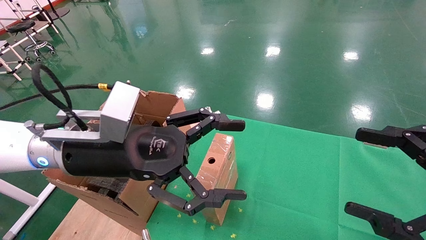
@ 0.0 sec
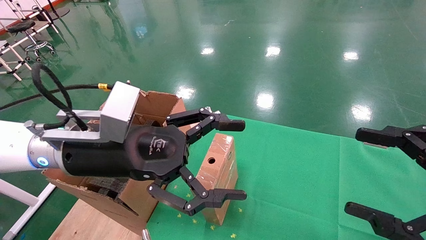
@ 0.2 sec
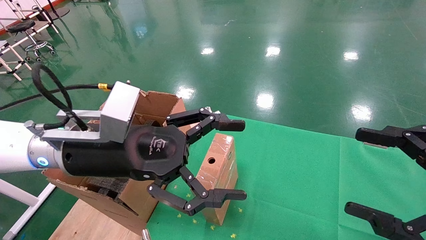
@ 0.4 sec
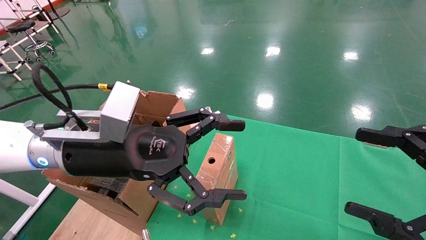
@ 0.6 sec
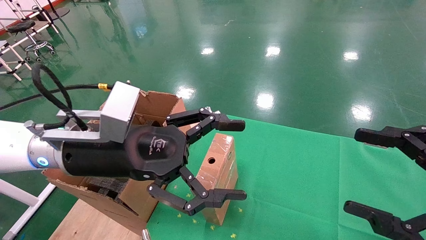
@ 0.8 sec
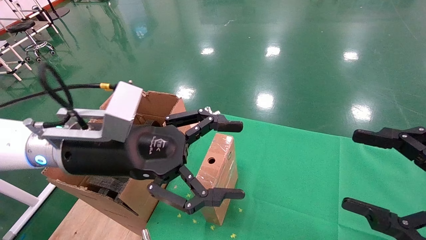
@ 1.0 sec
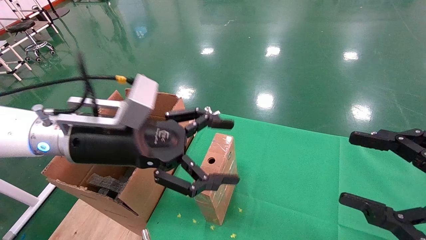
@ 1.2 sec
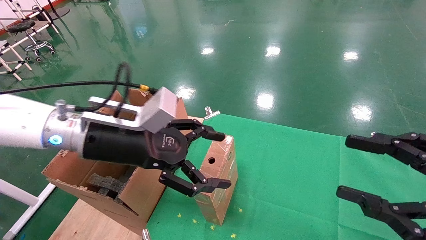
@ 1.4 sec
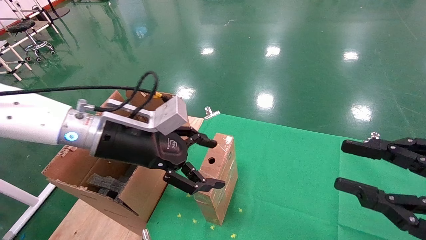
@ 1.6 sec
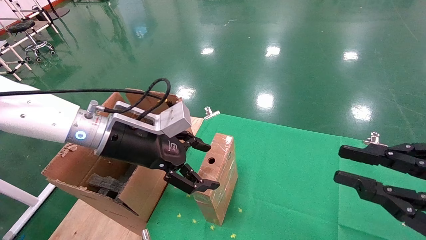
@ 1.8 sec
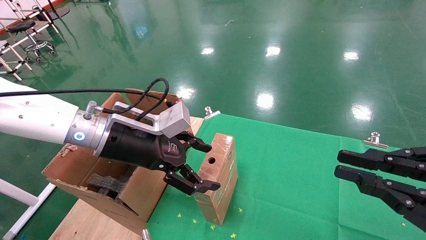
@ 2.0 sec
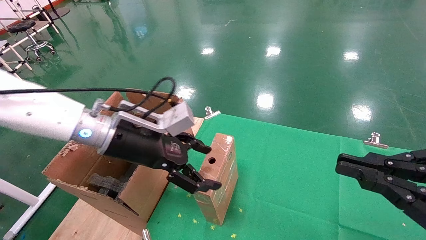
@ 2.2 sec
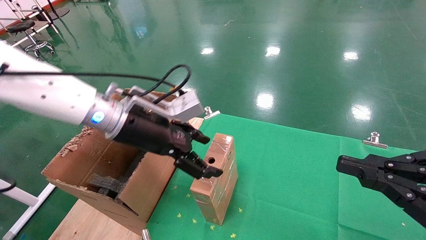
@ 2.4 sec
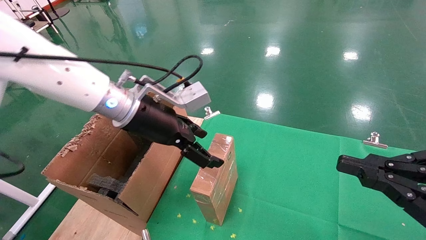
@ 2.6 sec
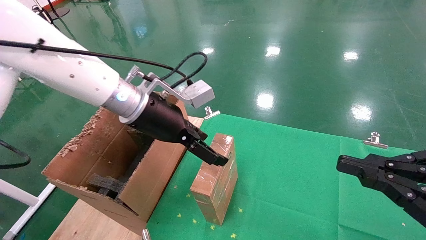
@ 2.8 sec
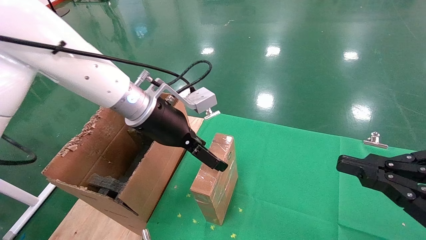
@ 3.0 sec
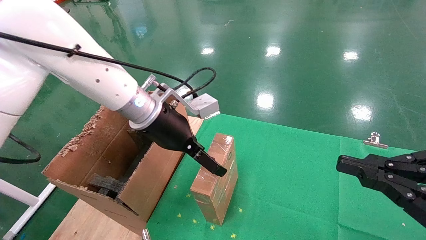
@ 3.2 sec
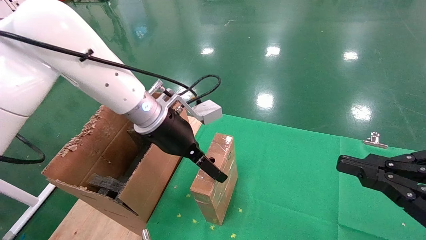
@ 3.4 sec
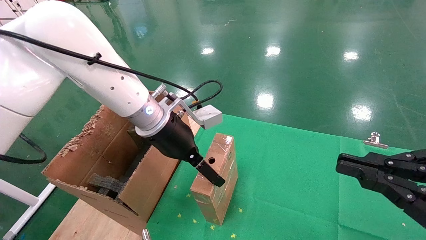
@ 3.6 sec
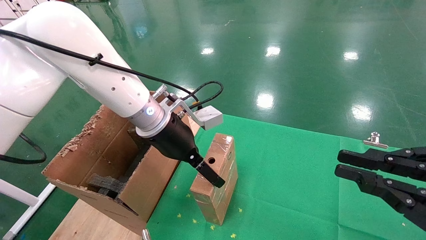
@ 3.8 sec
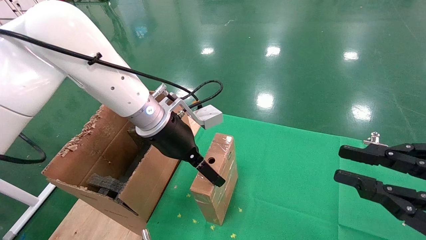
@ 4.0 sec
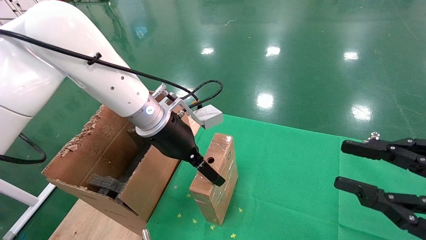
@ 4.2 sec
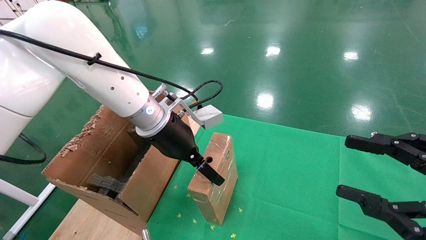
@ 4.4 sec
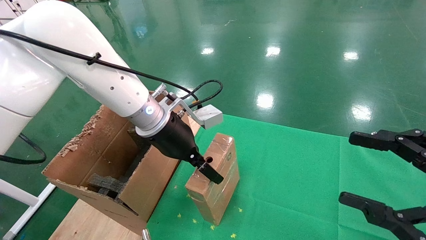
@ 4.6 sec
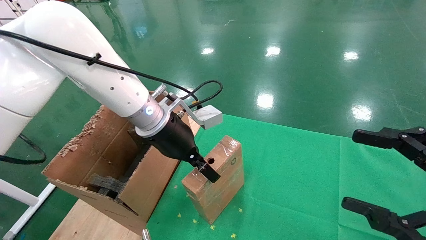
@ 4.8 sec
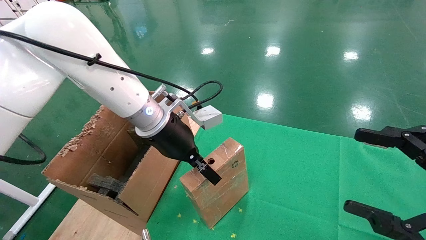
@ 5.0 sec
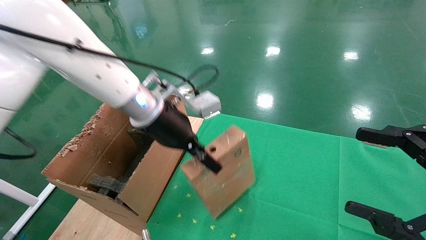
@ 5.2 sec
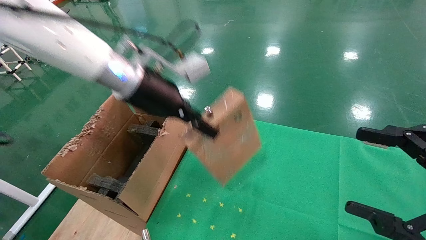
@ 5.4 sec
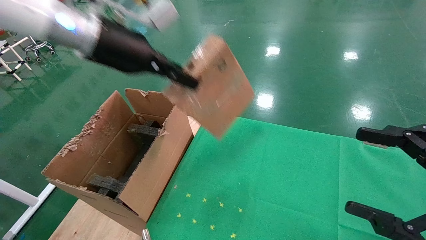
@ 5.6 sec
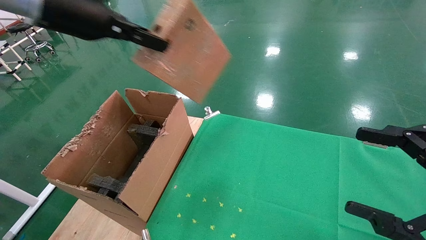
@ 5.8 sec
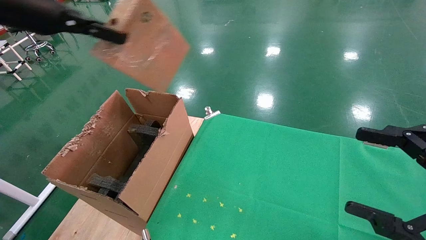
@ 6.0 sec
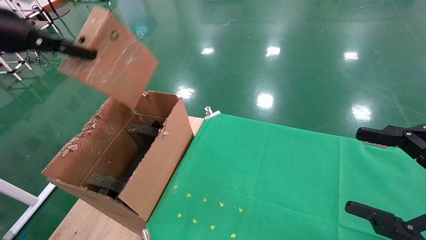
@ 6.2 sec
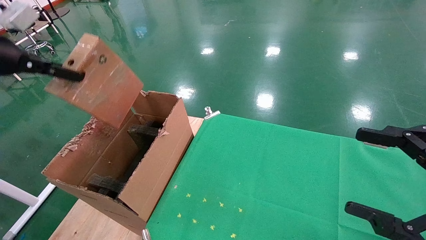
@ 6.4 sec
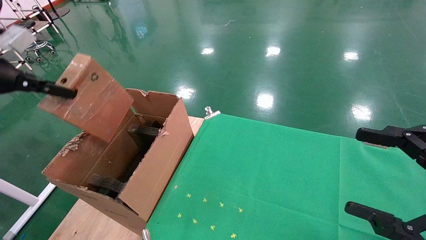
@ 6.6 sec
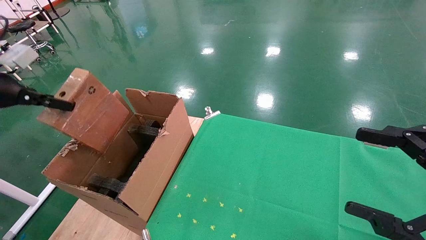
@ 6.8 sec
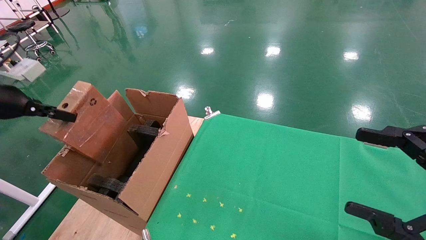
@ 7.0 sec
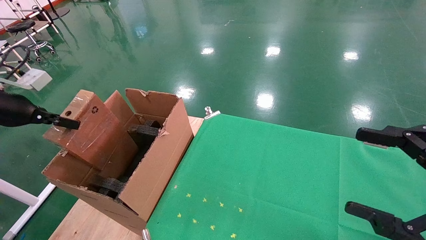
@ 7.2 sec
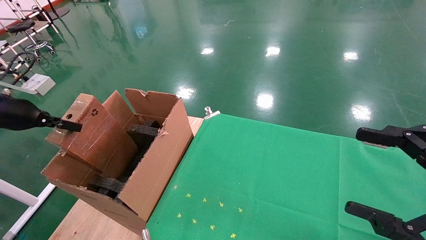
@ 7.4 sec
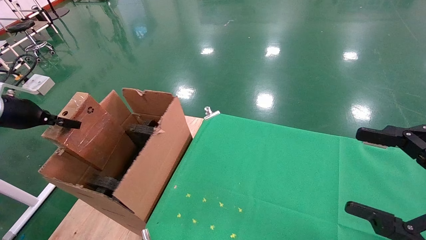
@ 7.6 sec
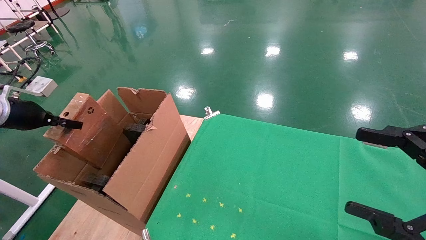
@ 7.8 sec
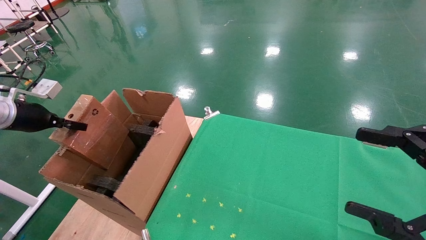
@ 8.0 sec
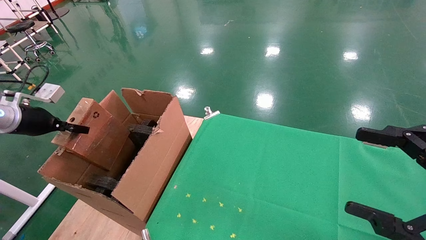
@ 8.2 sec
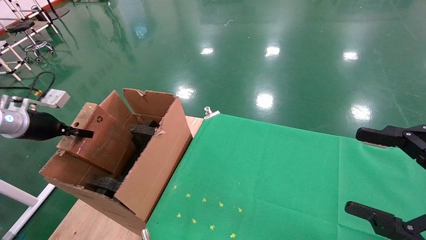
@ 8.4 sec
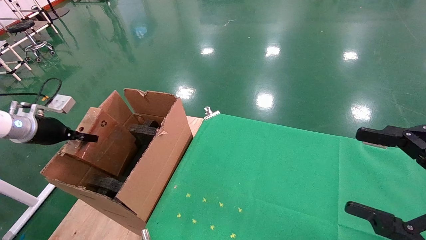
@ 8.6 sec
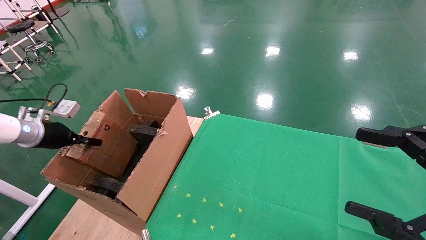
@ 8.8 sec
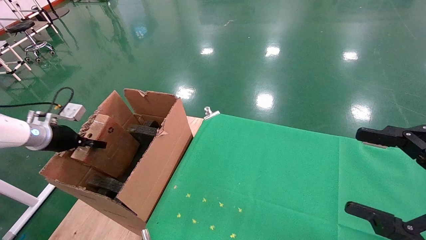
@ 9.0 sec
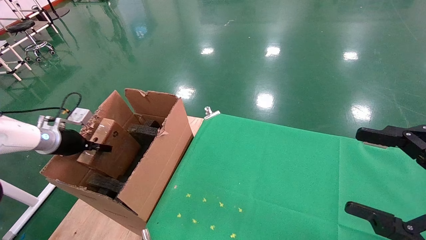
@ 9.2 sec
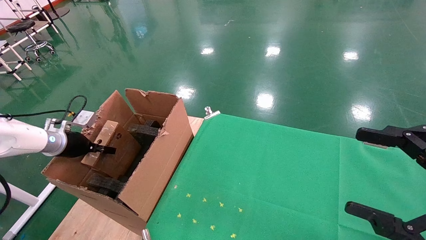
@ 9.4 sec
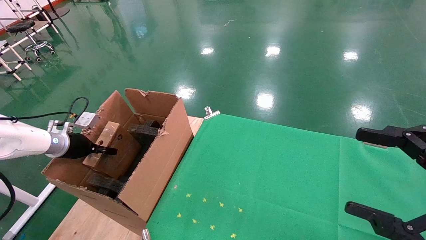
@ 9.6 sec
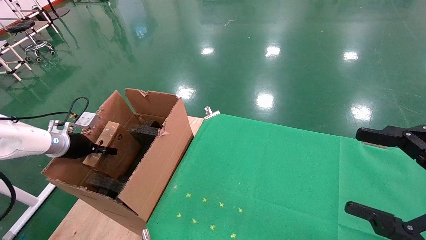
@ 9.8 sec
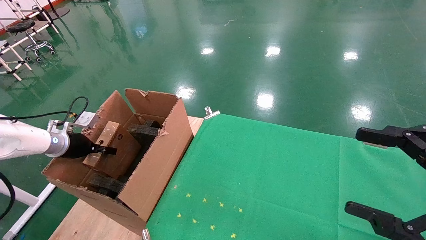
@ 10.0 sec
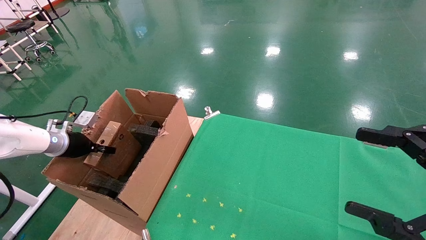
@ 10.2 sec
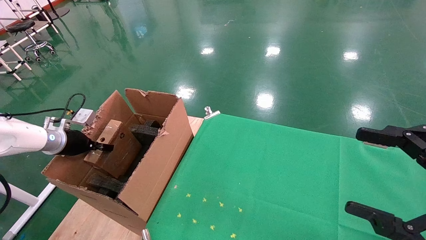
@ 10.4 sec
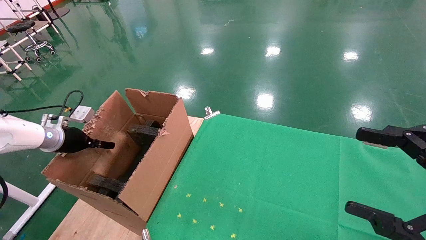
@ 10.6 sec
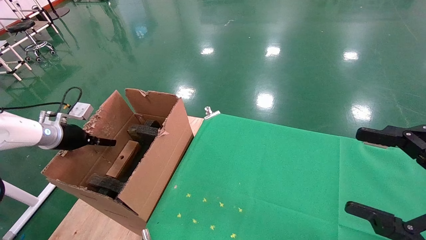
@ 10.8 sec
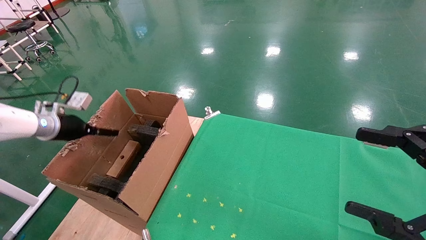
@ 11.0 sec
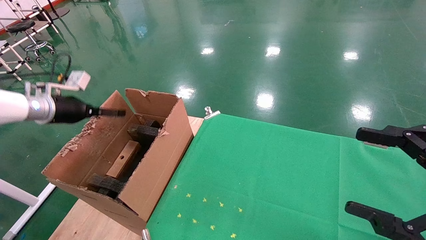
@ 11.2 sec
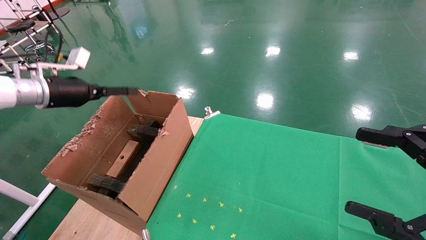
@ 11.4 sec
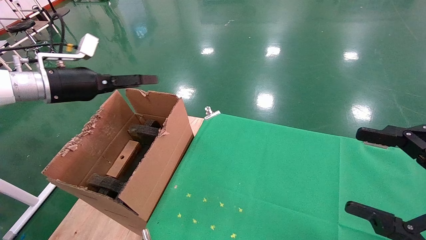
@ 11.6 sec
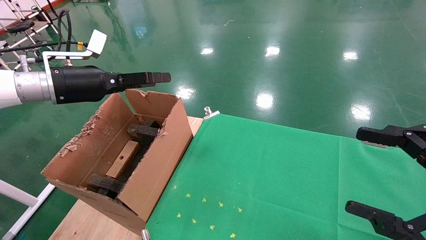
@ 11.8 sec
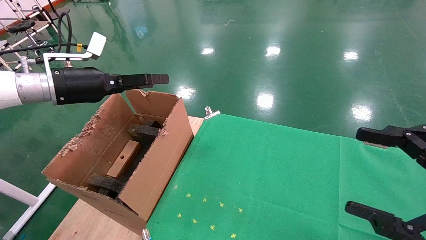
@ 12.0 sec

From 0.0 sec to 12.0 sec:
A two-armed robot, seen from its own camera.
Task of the whole recording: using a robotic arm to pick up a cardboard box and palace it the carton.
Step, from 1.4 sec to 4.8 sec: Pick up the mouse and the power cord paper box.
Step, from 5.0 sec to 11.4 sec: Place the mouse and the power cord paper box into the container.
From 0.0 sec to 1.6 sec: The right gripper closes up, while the left gripper changes place by roughly 5 cm.
From 1.6 sec to 3.0 sec: The left gripper moves forward, about 5 cm. The right gripper closes up.
From 3.0 sec to 4.4 sec: The right gripper opens.
From 4.4 sec to 6.0 sec: The left gripper shifts approximately 30 cm to the left and upward, and closes. The right gripper opens its fingers.
From 6.0 sec to 7.6 sec: The left gripper travels downward and to the left by some 25 cm.
From 7.6 sec to 9.0 sec: The left gripper heads downward and forward, covering approximately 10 cm.
From 9.0 sec to 10.4 sec: The grippers move only a little.
From 10.4 sec to 12.0 sec: The left gripper is displaced upward and to the right by some 20 cm, and opens.

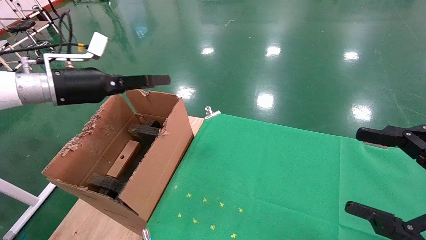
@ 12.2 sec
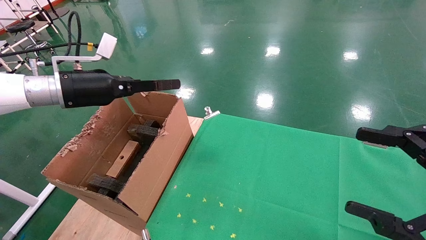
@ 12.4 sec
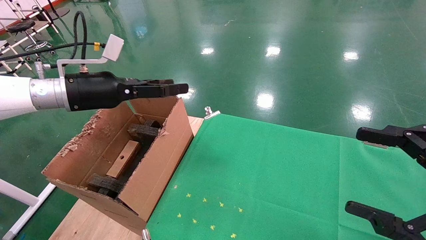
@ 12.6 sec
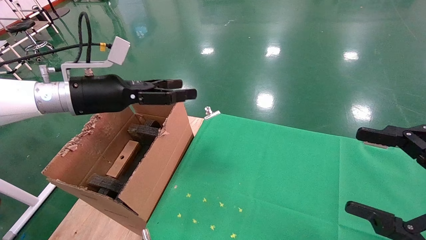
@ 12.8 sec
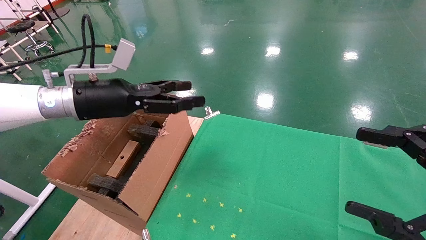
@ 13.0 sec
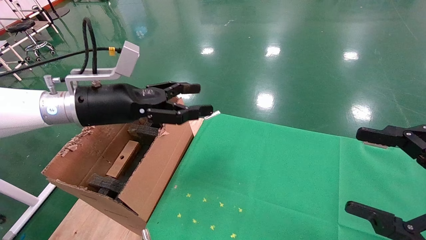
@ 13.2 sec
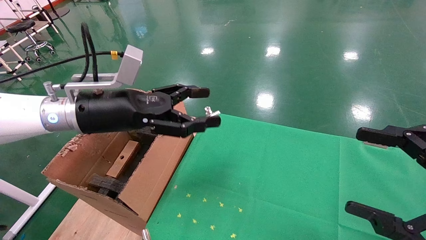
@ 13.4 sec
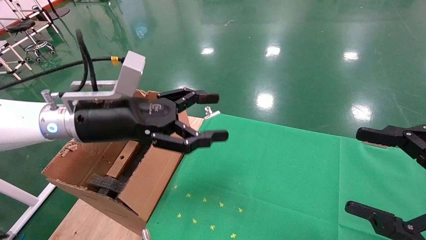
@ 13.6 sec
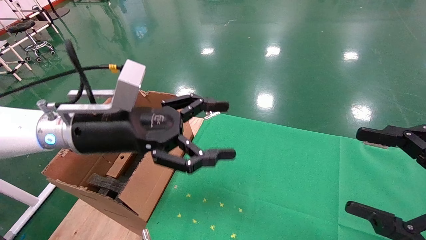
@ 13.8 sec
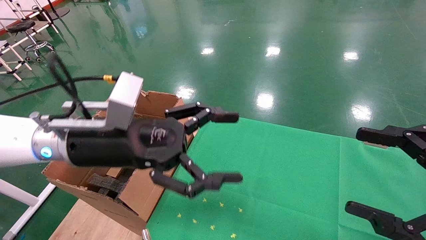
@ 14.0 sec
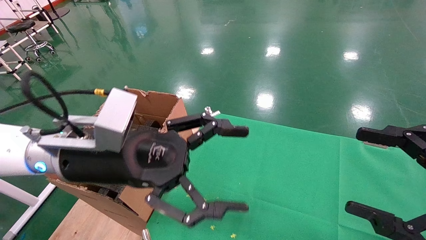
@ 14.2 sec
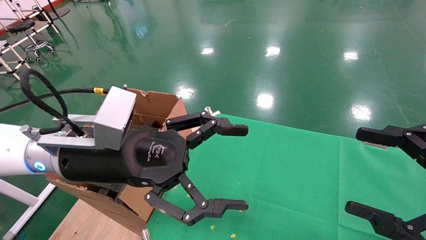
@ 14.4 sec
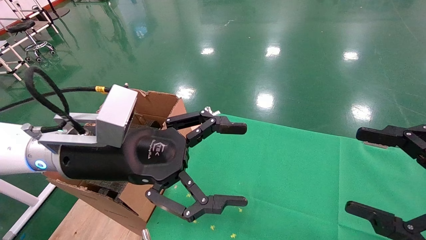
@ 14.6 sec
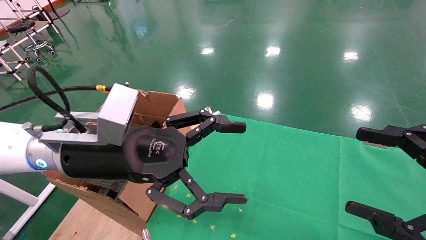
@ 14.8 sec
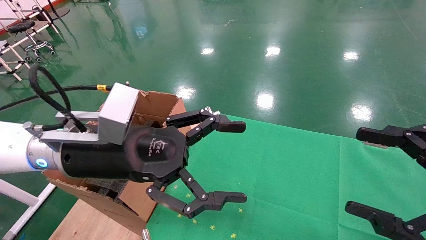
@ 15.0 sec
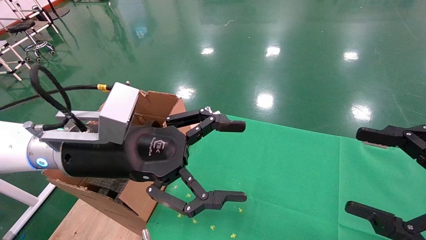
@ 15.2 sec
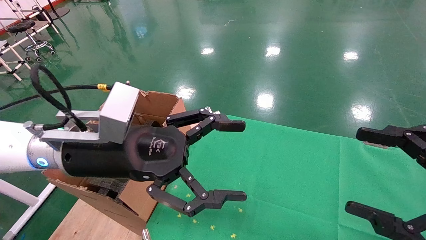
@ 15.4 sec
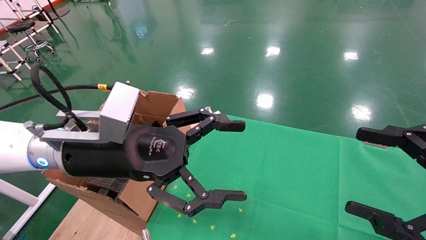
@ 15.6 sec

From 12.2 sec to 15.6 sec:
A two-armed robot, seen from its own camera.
Task of the whole recording: using a robotic arm to pick up a cardboard box and palace it the carton.
From 12.2 sec to 13.8 sec: The left gripper travels to the right and backward by some 15 cm.
From 13.8 sec to 15.6 sec: There are only small adjustments of the grippers.
